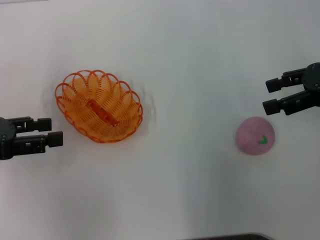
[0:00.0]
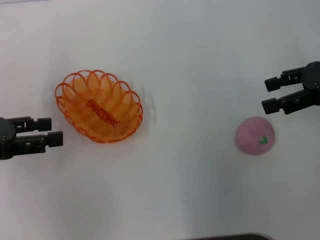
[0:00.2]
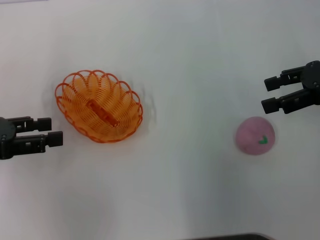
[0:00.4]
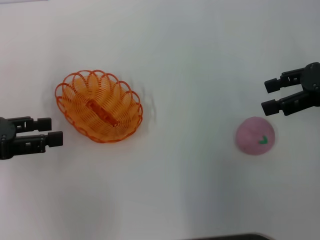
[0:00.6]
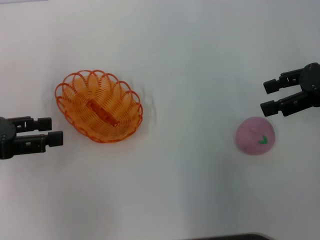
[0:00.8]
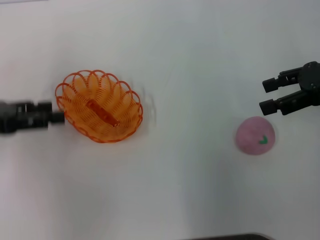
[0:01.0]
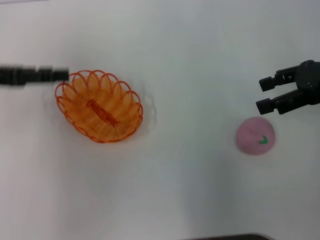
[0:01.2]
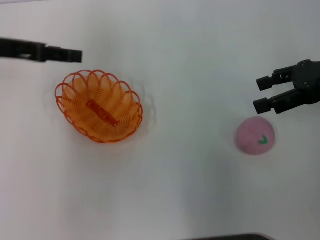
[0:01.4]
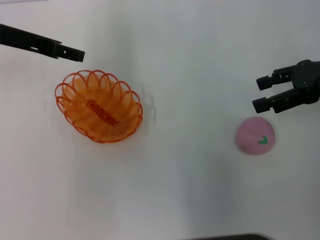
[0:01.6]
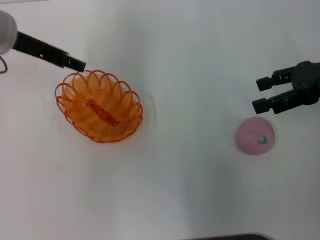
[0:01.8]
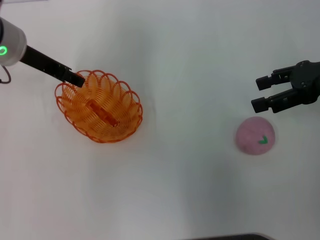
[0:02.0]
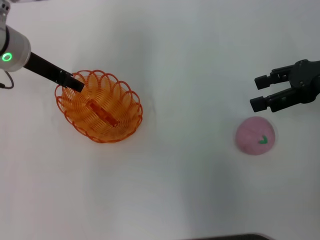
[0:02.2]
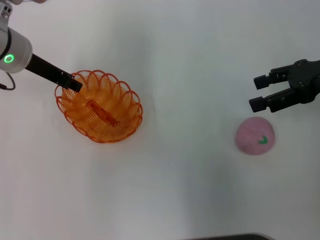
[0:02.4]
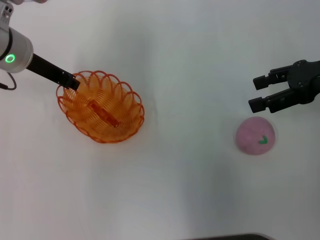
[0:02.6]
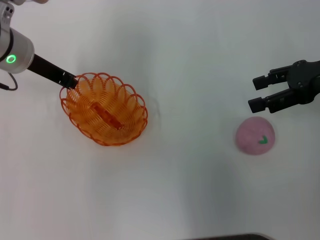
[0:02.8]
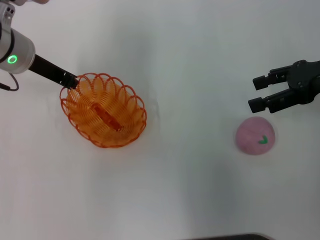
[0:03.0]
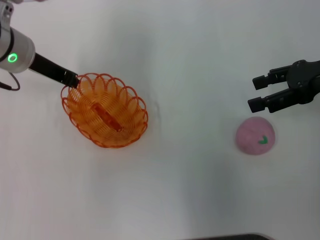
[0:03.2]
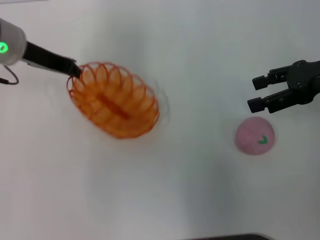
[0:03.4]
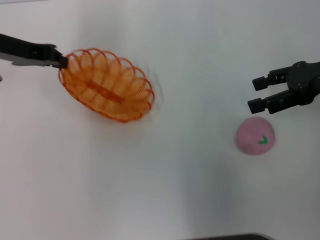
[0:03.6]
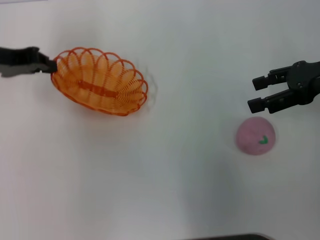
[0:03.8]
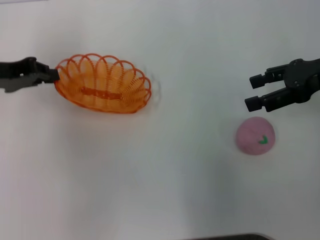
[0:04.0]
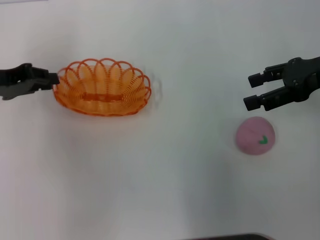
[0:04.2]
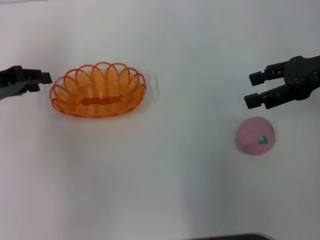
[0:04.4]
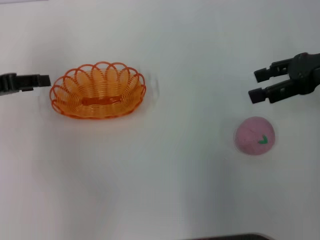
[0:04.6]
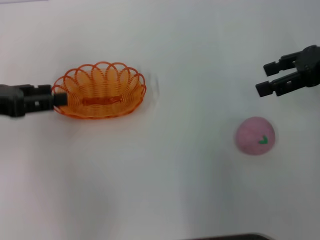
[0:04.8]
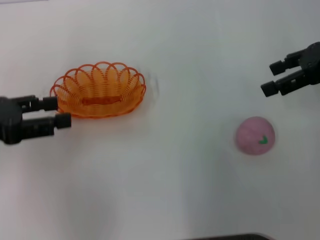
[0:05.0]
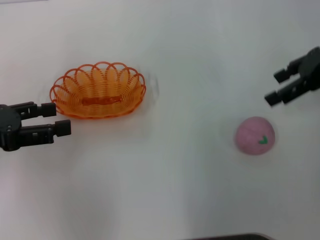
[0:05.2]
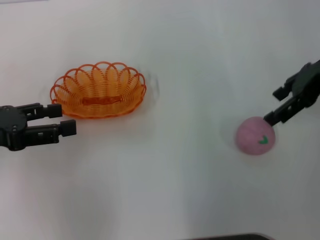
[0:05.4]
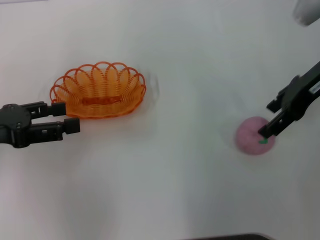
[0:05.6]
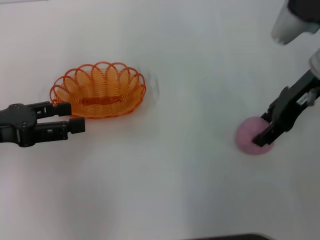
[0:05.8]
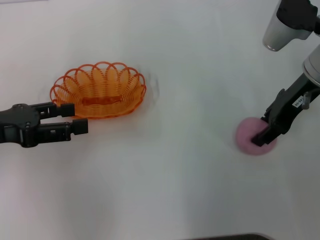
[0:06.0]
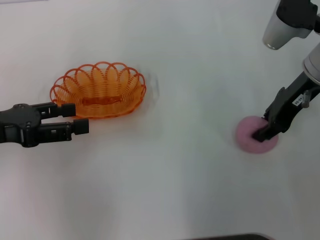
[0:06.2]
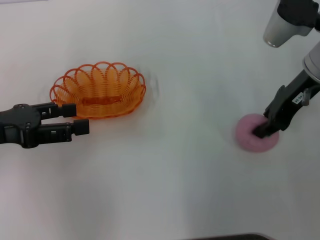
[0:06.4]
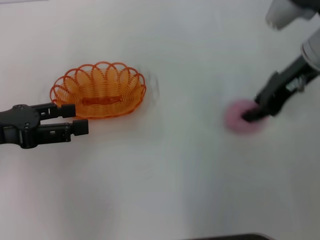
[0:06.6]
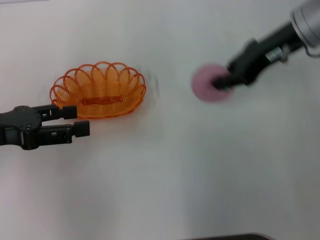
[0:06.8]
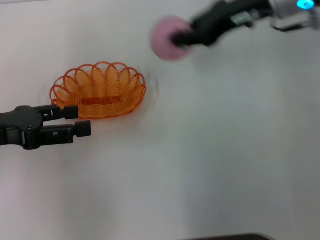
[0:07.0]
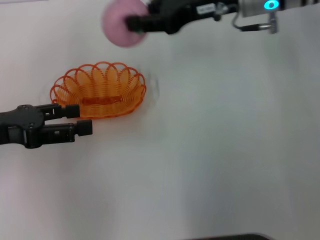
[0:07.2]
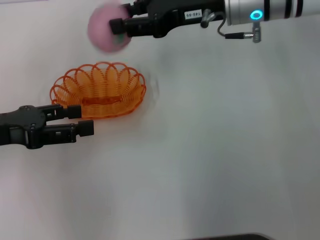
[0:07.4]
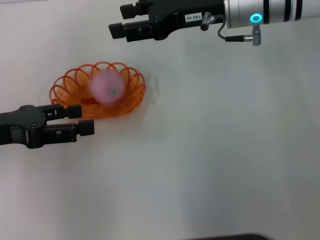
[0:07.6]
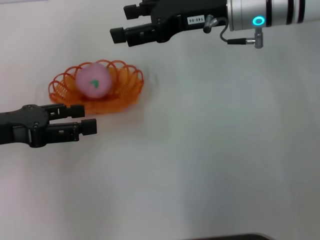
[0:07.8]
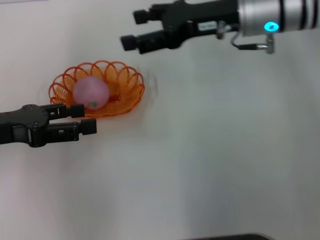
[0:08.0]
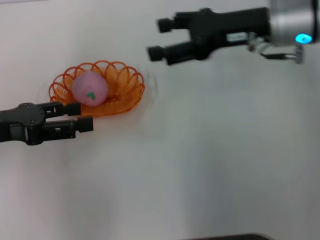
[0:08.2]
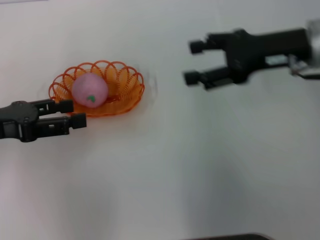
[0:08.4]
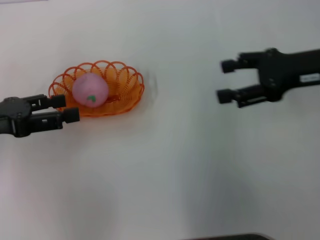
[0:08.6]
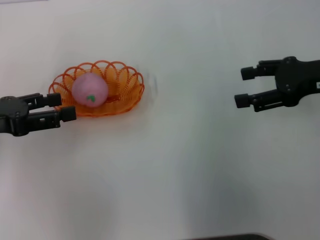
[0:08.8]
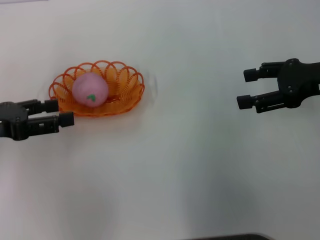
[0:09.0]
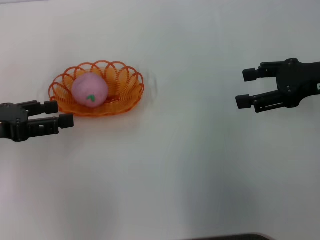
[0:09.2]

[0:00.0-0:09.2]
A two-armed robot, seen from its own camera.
Step, 0:00.0 to 0:03.4: Pick up the basket with the left gripper.
Step, 0:03.6 to 0:05.0: Place the basket in the center of view with the left gripper.
Step, 0:05.4 to 0:06.8: Pick up the peach with the right gripper.
Step, 0:07.0 to 0:08.2: Place the peach into the basket with the right gripper.
0:00.0 to 0:01.6: The left gripper goes about 15 cm forward, to the right and upward.
0:01.6 to 0:03.0: The left gripper shifts by about 5 cm, and closes its fingers.
0:03.0 to 0:04.6: The left gripper is displaced to the left and backward by approximately 15 cm, and opens up.
0:04.6 to 0:06.2: The left gripper travels backward by roughly 5 cm, and opens its fingers. The right gripper travels to the left by some 10 cm, and closes its fingers.
0:06.2 to 0:07.6: The right gripper moves to the left, roughly 10 cm, and closes, then opens again.
0:07.6 to 0:09.2: The right gripper goes about 20 cm to the right and backward, and opens its fingers.
